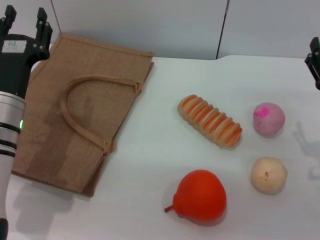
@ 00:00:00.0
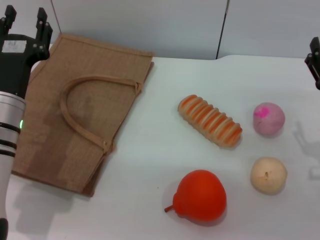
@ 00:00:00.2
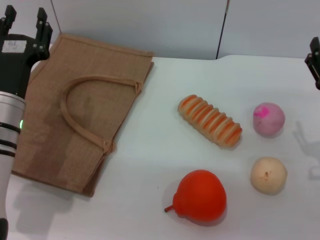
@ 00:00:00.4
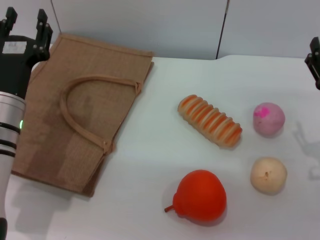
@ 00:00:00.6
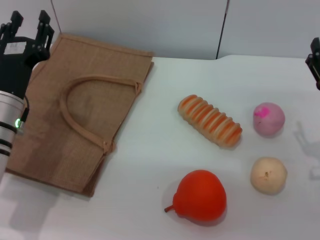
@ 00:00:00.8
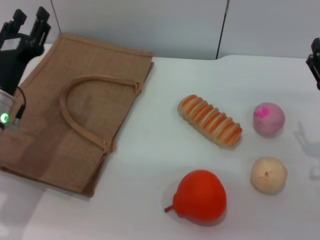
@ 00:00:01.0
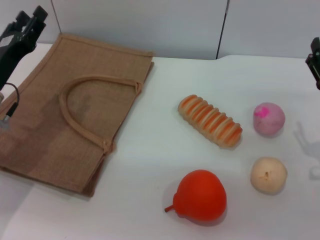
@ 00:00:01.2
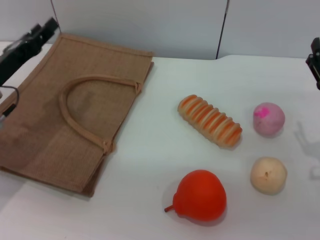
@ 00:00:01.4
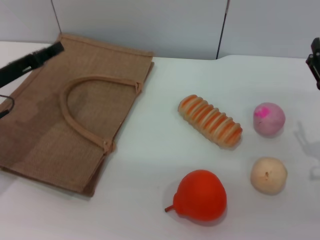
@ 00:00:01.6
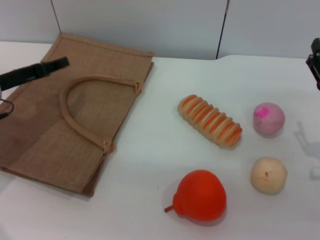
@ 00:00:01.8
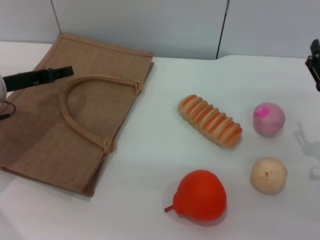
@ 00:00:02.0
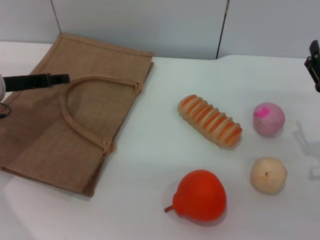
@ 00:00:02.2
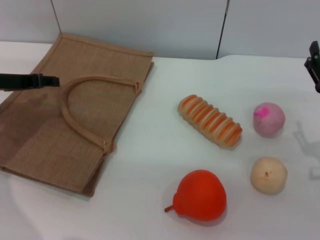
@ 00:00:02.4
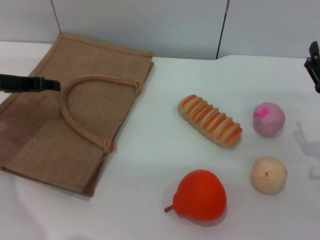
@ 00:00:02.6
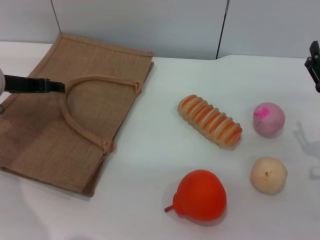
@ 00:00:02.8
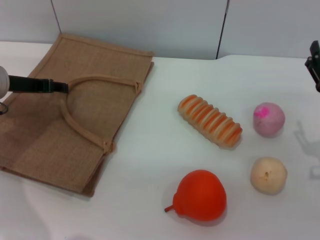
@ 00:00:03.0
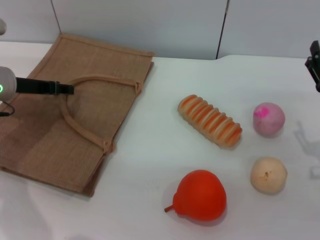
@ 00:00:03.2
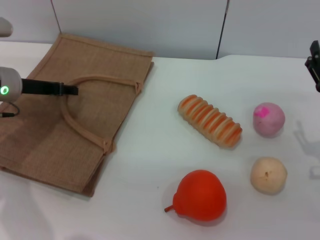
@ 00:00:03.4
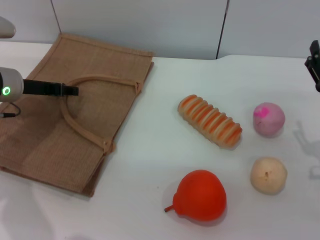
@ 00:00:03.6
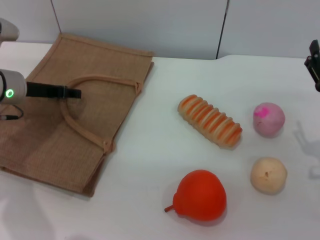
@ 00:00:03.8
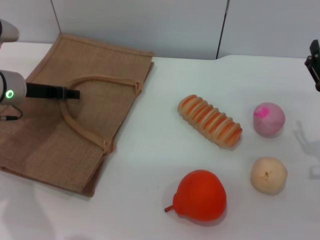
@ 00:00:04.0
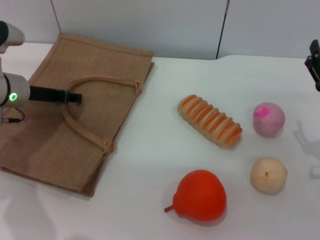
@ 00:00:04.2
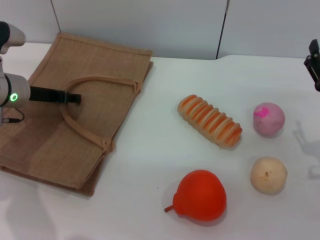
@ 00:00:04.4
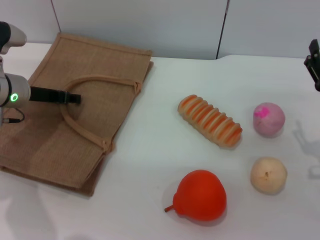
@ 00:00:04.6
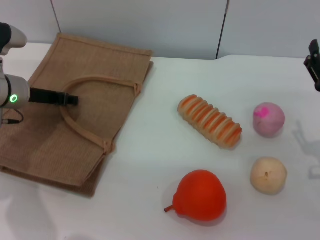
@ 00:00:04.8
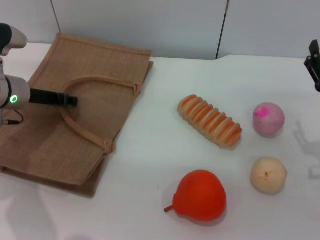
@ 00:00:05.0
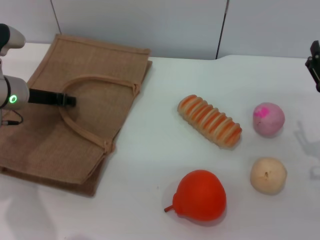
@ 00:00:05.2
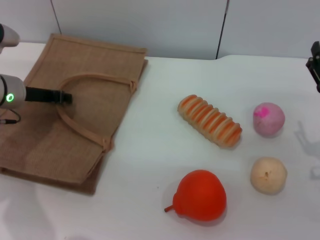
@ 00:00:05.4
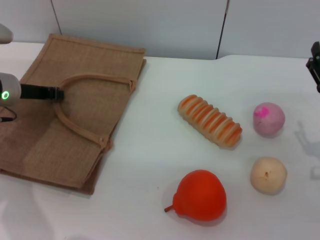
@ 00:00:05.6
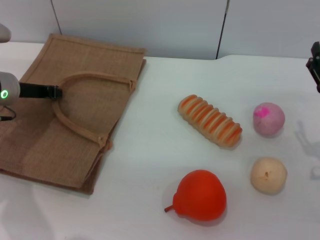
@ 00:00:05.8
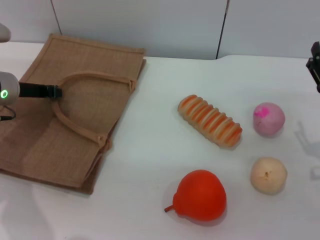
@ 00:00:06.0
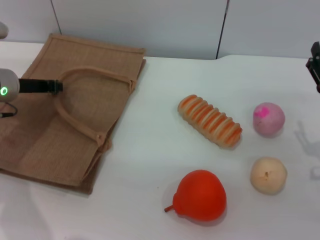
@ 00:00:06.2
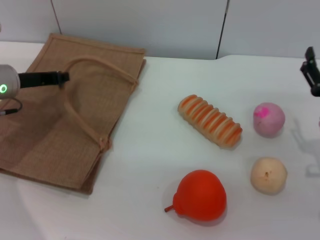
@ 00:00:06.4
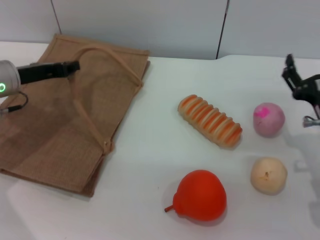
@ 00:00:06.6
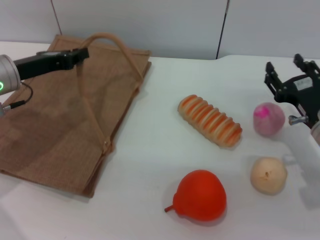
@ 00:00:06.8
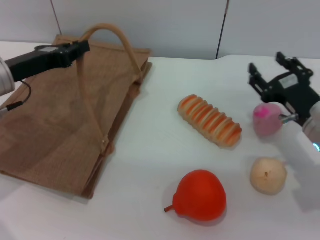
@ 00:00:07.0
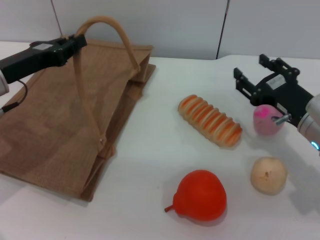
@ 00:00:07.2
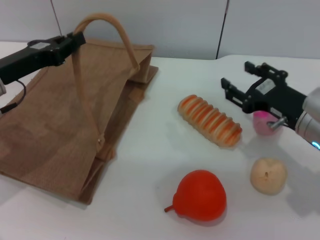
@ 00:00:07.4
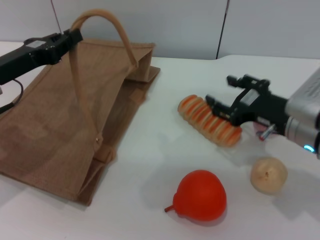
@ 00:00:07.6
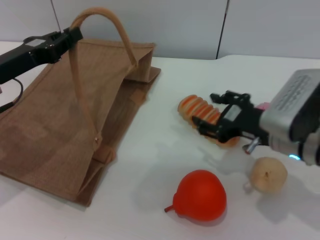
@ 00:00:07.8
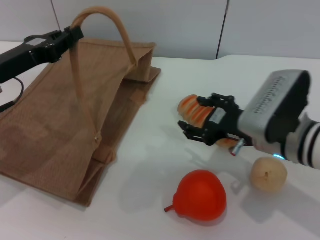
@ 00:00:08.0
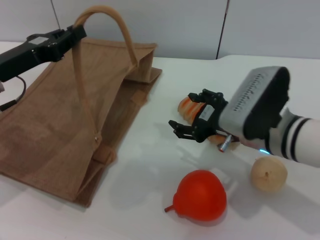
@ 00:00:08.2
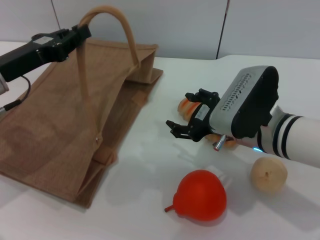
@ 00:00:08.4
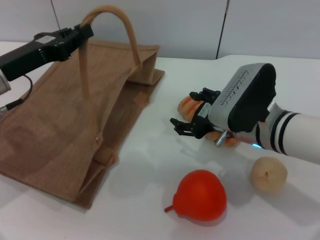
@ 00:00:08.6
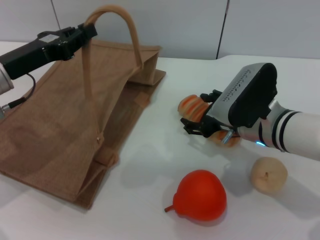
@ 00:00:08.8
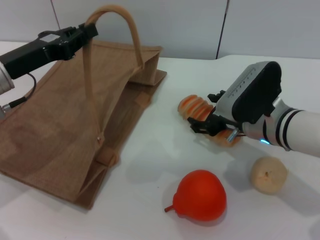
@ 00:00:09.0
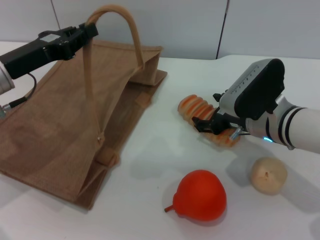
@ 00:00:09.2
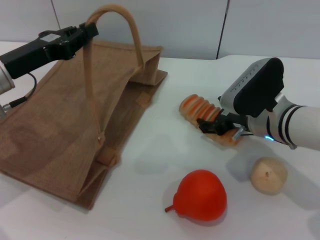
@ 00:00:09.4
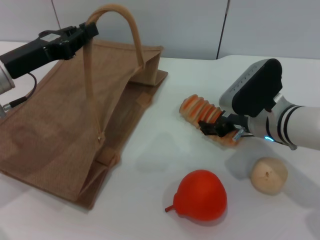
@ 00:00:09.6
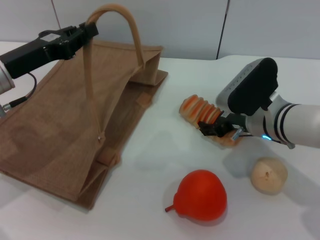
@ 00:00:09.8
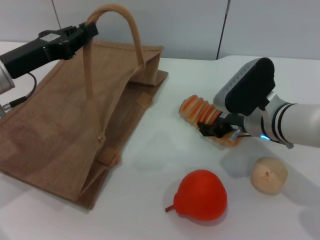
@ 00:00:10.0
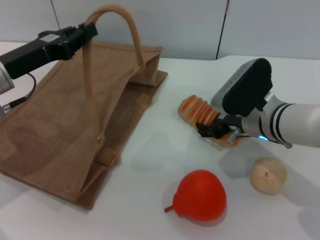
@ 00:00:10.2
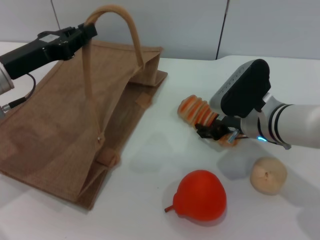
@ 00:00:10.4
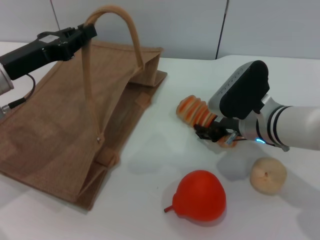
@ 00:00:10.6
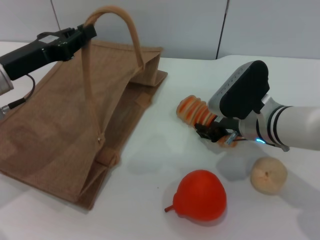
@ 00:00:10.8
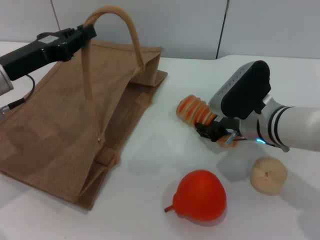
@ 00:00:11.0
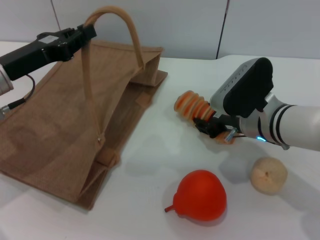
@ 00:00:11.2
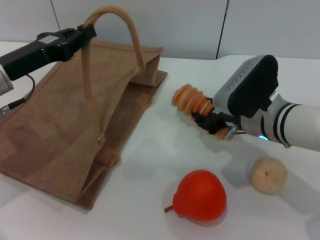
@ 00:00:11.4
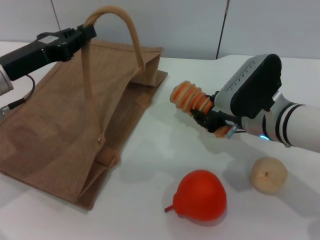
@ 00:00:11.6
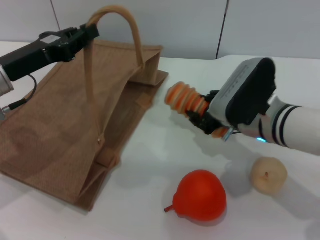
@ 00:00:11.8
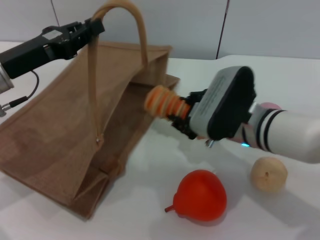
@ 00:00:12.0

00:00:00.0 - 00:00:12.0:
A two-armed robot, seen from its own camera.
Task of the whole recording: pick up the bread from the table and place it in the brown handbag.
Step, 00:00:00.0 - 00:00:06.4: Lift the woven bag with the left gripper to open it.
Step, 00:00:06.6 - 00:00:11.4: Pick up the bread with the right gripper.
00:00:00.0 - 00:00:01.6: The left gripper is displaced to the left by roughly 10 cm.
00:00:03.0 - 00:00:04.4: The grippers stay close to where they were, moving slightly.
00:00:04.4 - 00:00:06.0: The left gripper closes.
00:00:06.0 - 00:00:07.6: The right gripper goes about 5 cm to the left. The left gripper is displaced backward by approximately 5 cm.
00:00:07.6 - 00:00:09.0: The right gripper shifts by some 5 cm.
00:00:09.0 - 00:00:10.4: The grippers stay close to where they were, moving slightly.
00:00:10.4 - 00:00:12.0: The right gripper ends up about 5 cm from where it was, and closes up.

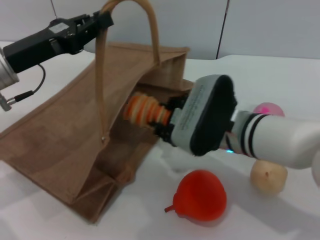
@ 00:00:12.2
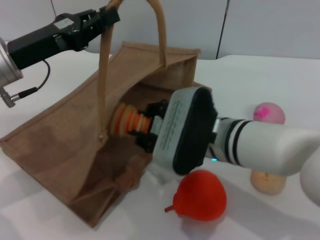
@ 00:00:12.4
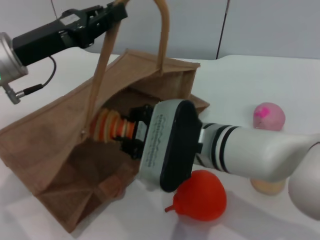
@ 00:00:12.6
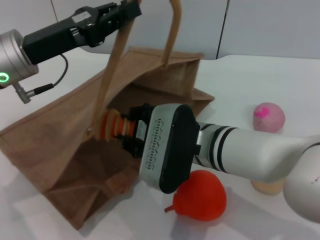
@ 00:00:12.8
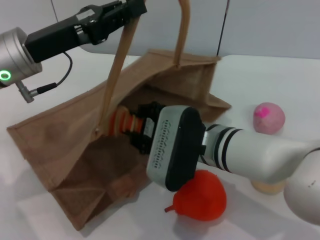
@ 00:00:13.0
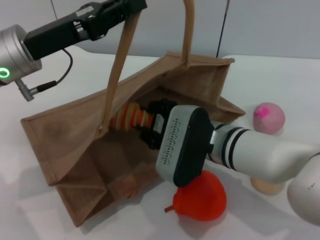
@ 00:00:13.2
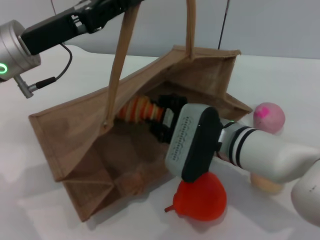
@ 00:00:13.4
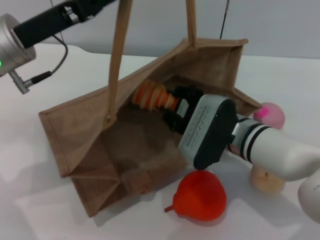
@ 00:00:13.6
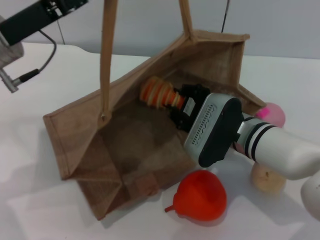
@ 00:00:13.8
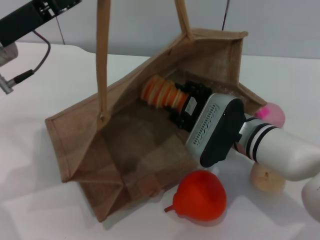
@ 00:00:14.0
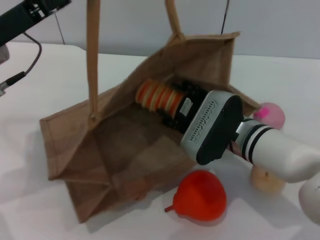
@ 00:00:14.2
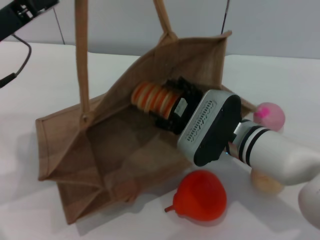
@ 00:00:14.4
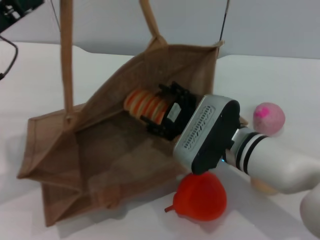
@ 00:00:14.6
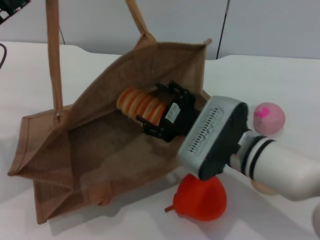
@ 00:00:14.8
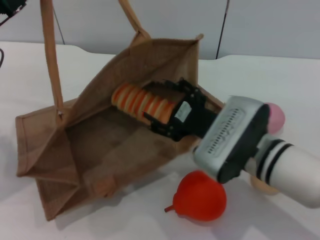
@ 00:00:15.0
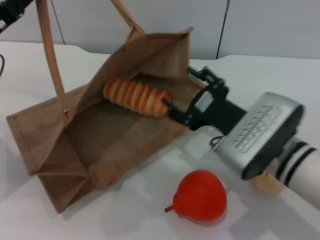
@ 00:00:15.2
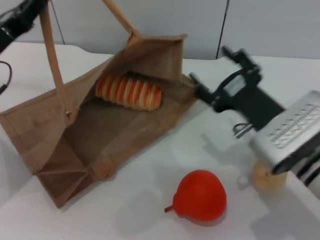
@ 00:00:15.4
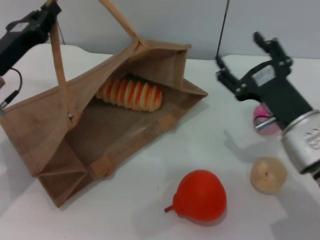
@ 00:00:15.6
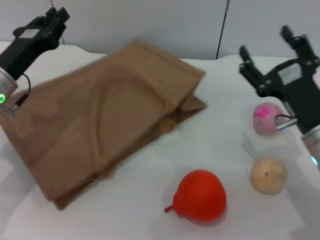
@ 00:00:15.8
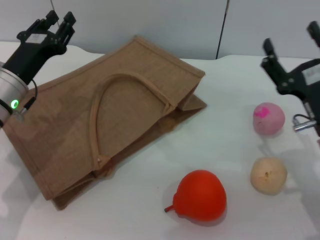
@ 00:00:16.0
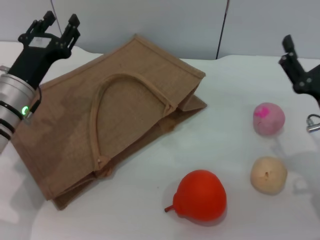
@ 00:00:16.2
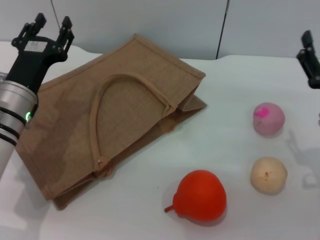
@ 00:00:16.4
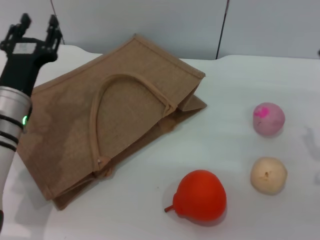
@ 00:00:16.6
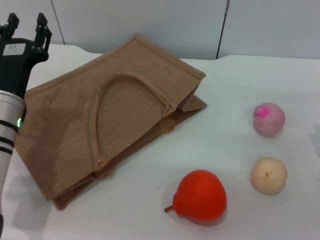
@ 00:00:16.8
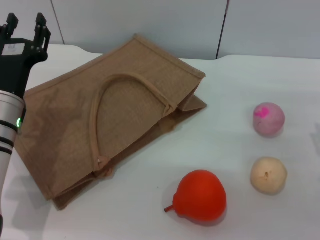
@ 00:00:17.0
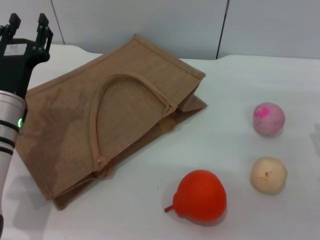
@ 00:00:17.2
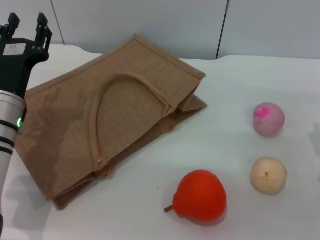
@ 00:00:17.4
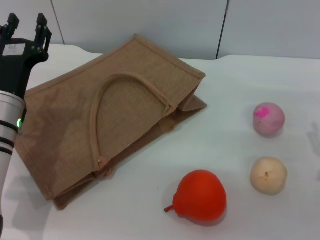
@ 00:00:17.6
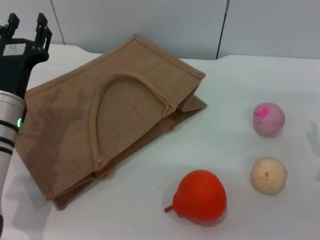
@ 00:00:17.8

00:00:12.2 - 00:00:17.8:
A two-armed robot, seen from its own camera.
Task of the whole recording: pick up the bread from the table and place it in the brown handbag.
Step, 00:00:12.2 - 00:00:14.8: Place the bread into the woven bag with the right gripper.
Step, 00:00:15.2 - 00:00:16.0: Lower the woven bag with the left gripper to close it.
00:00:13.6 - 00:00:15.0: The right gripper ends up approximately 5 cm from where it was, and opens its fingers. Meanwhile the left gripper heads to the left, covering about 10 cm.
00:00:15.0 - 00:00:16.4: The left gripper goes approximately 10 cm downward and to the right, and opens its fingers; the right gripper travels to the right by roughly 15 cm.
00:00:16.4 - 00:00:17.8: The grippers stay close to where they were, moving slightly.
